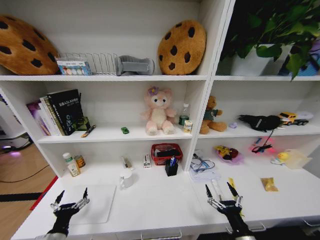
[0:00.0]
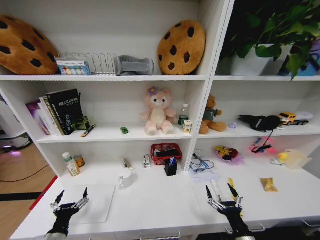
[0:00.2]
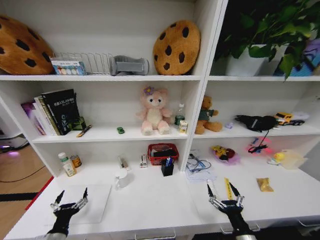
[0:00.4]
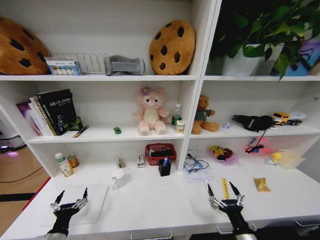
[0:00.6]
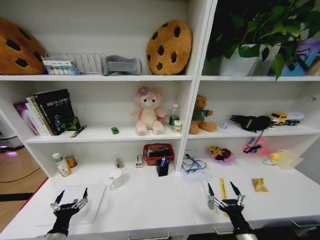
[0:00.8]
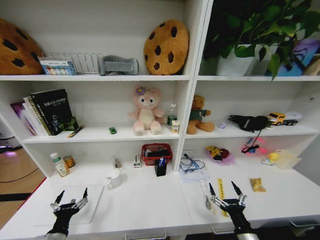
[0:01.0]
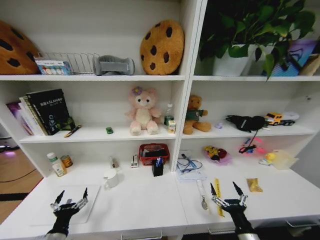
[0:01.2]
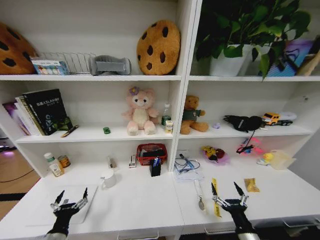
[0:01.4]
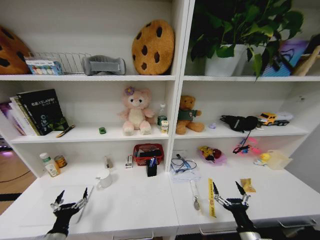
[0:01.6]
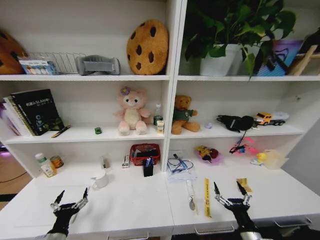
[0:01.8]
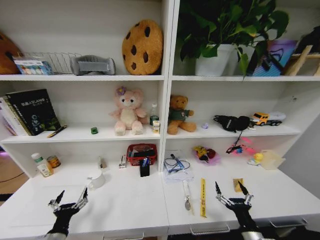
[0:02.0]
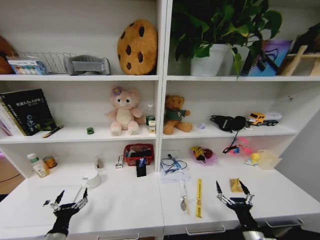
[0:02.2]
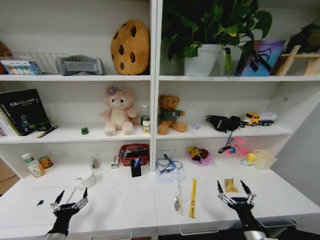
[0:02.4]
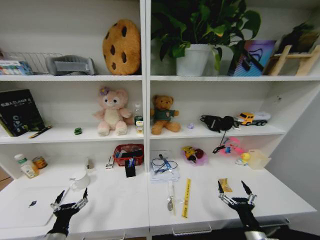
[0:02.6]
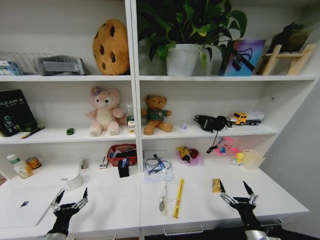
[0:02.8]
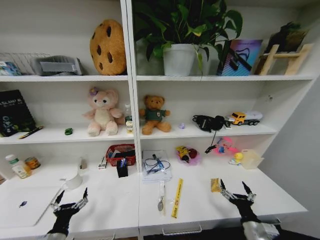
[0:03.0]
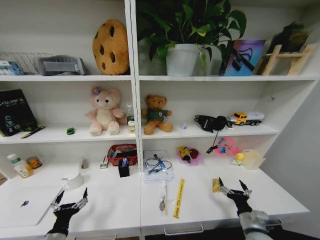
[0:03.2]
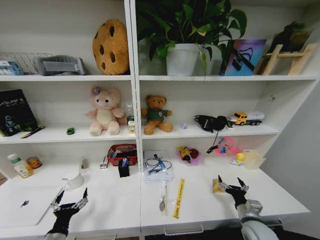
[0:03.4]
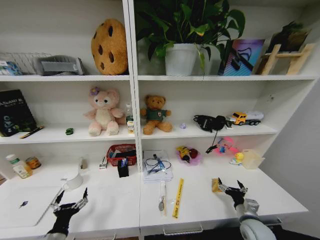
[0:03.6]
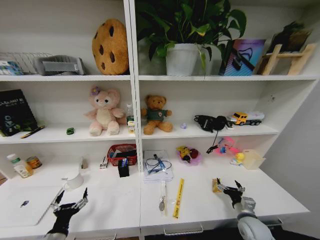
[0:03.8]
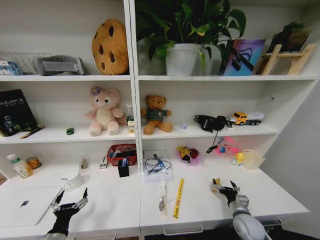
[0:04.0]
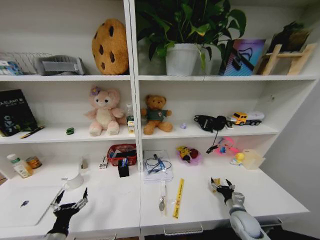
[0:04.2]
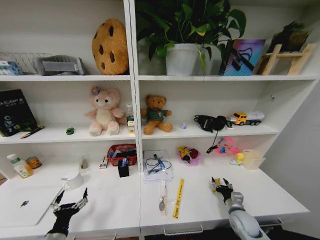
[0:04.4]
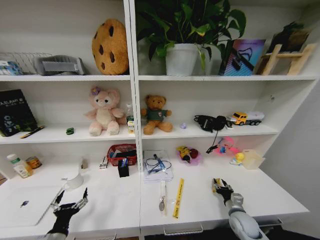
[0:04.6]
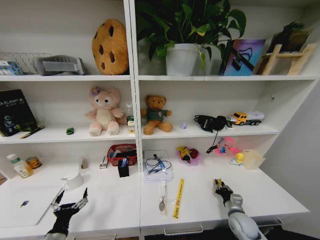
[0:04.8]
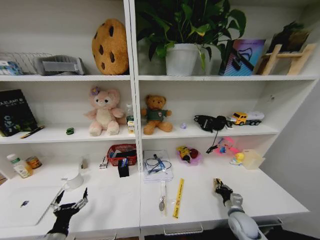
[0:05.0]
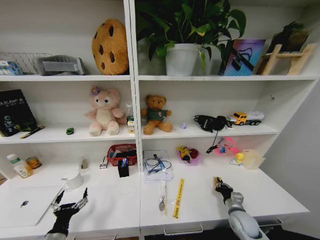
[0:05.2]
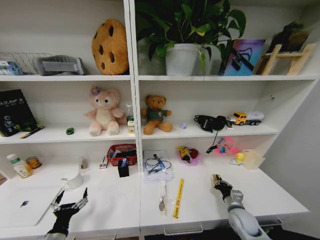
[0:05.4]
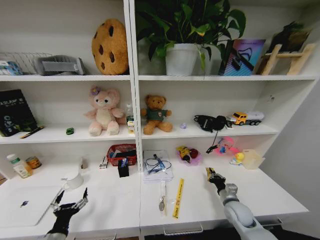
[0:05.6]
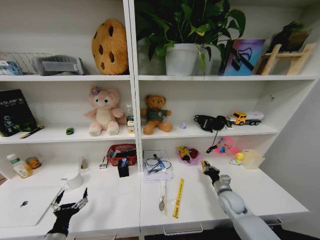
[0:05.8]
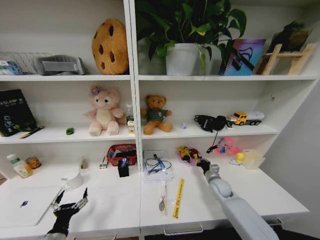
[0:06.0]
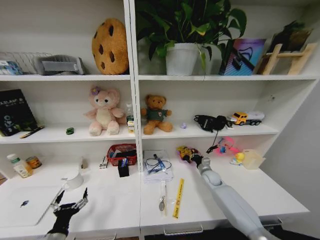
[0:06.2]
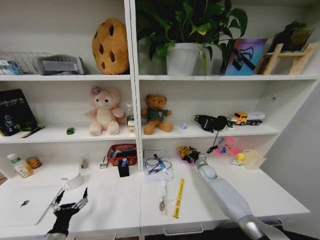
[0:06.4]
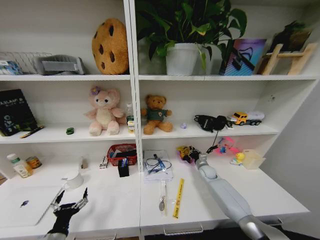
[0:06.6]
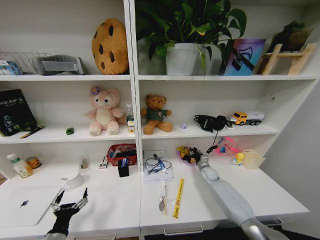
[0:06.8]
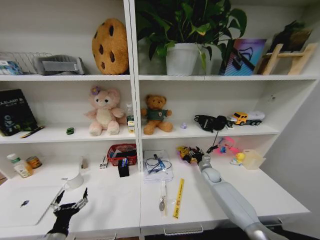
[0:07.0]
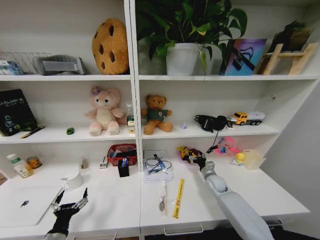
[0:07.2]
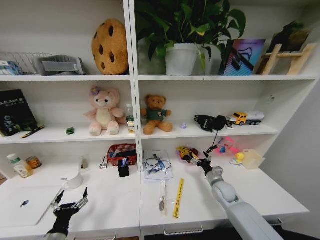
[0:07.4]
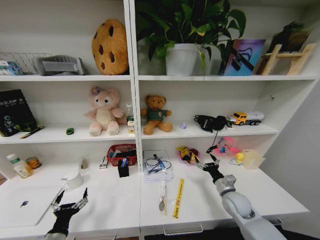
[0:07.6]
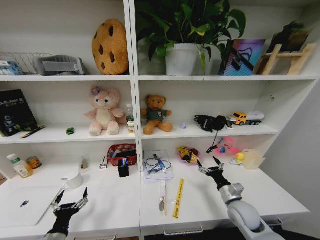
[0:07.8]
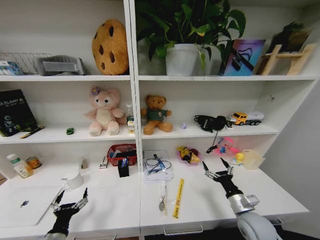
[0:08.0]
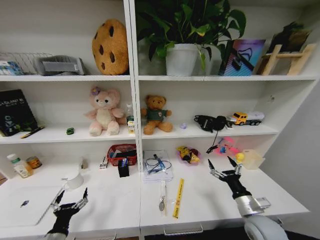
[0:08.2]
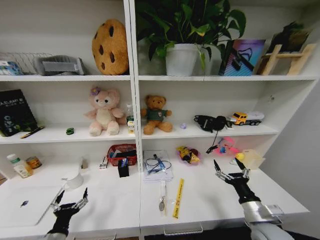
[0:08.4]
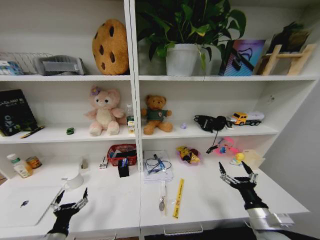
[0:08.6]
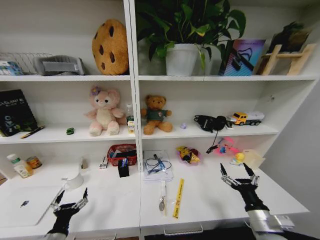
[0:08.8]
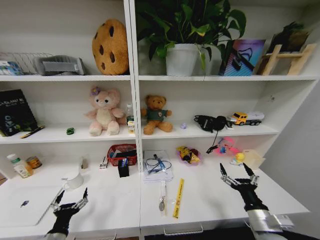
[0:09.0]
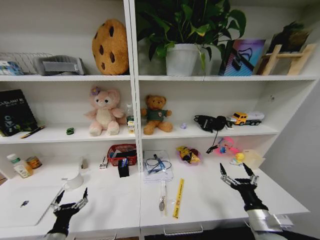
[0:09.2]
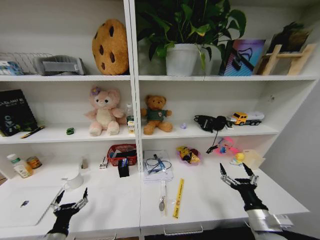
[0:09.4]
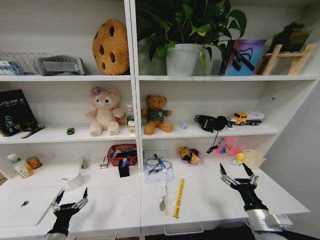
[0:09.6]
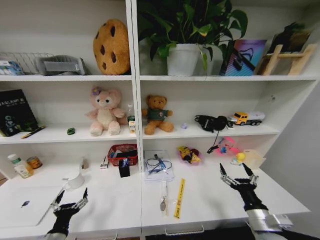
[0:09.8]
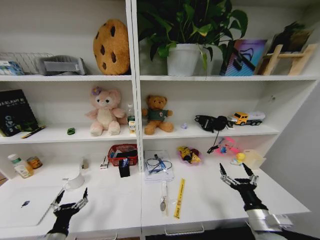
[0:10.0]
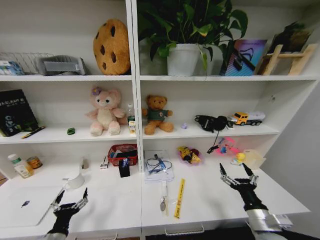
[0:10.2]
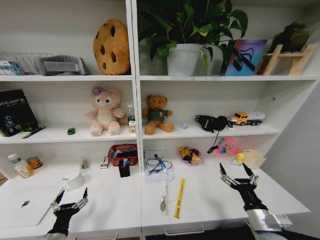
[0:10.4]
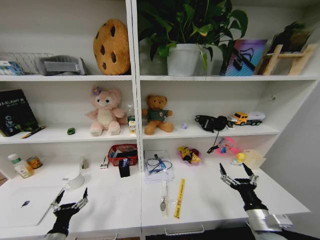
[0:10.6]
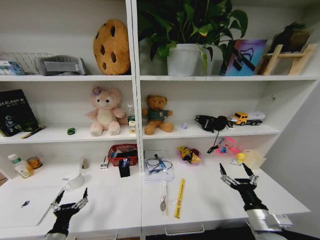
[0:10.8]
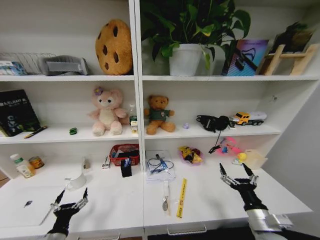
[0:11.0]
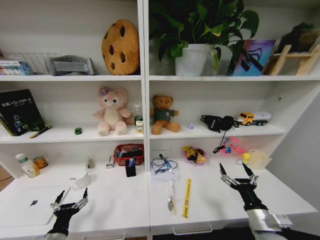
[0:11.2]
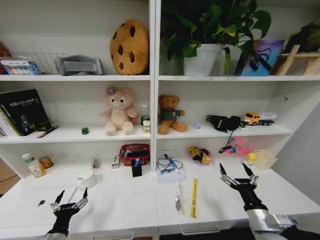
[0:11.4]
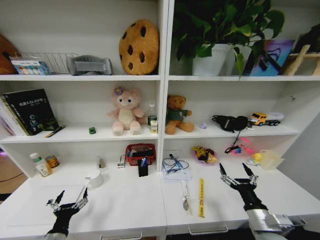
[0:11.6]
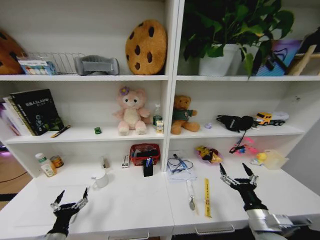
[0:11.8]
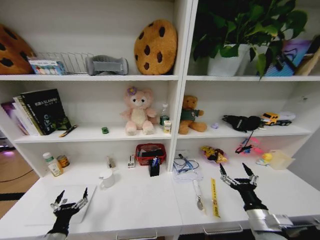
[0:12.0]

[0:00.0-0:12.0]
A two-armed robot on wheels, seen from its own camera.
Task of the whole recording: Organize the objects on the table.
0:03.0 to 0:04.4: The right gripper heads forward and downward, covering roughly 15 cm.
0:04.4 to 0:06.0: The right gripper goes approximately 15 cm forward, and closes.
0:06.0 to 0:07.6: The right gripper heads backward, covering roughly 10 cm, and opens its fingers.
0:07.6 to 0:09.0: The right gripper travels backward by approximately 15 cm.
0:09.0 to 0:10.4: Both grippers stay put.

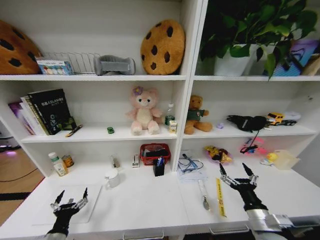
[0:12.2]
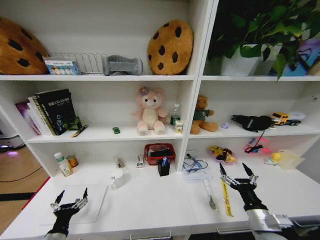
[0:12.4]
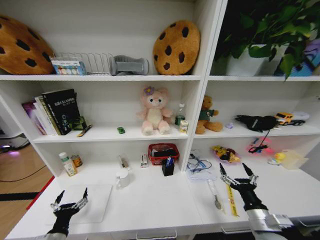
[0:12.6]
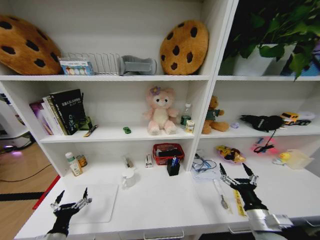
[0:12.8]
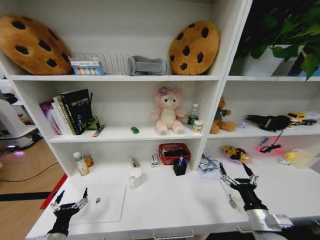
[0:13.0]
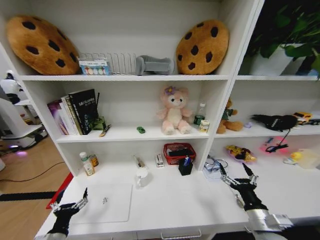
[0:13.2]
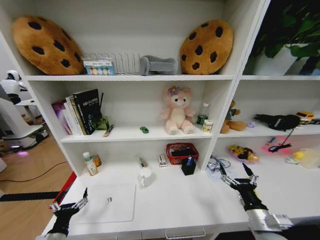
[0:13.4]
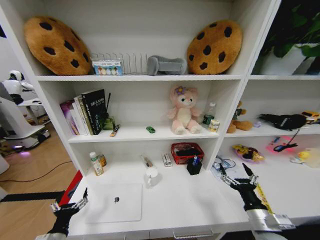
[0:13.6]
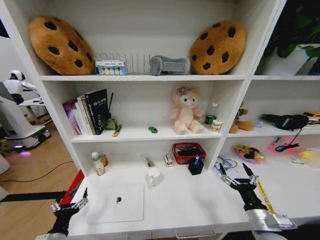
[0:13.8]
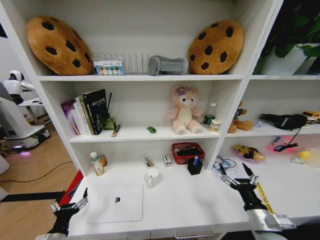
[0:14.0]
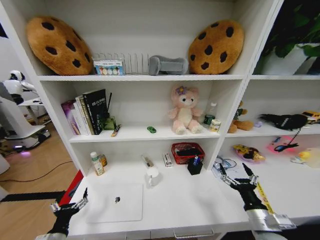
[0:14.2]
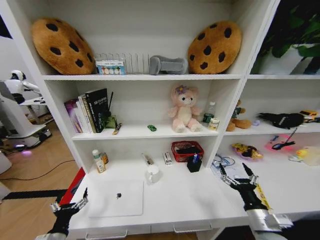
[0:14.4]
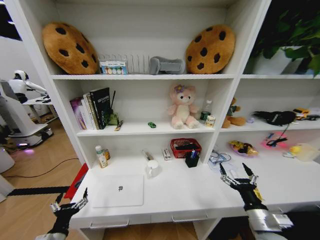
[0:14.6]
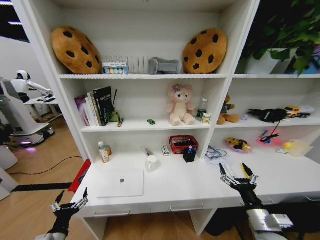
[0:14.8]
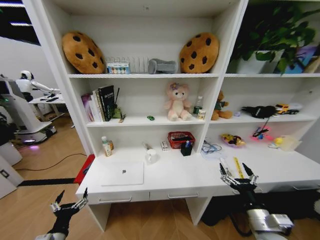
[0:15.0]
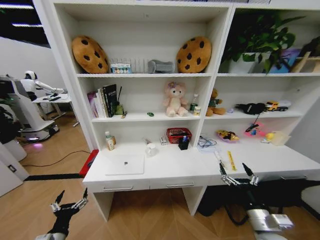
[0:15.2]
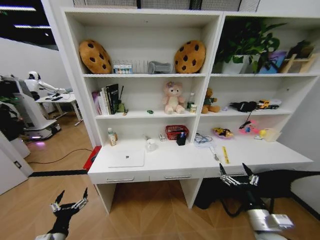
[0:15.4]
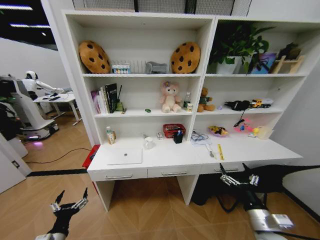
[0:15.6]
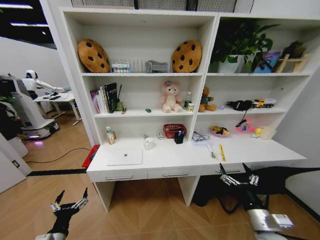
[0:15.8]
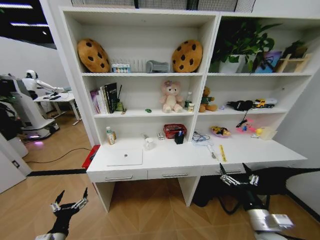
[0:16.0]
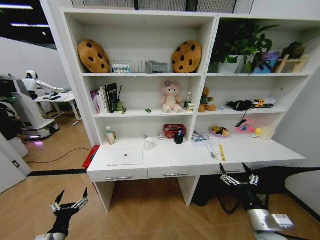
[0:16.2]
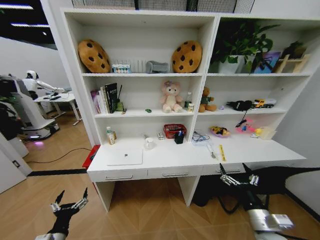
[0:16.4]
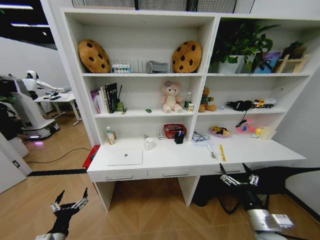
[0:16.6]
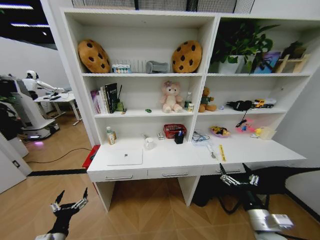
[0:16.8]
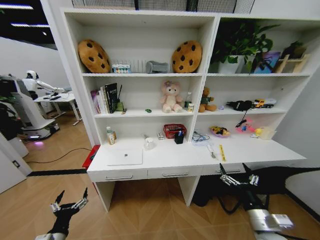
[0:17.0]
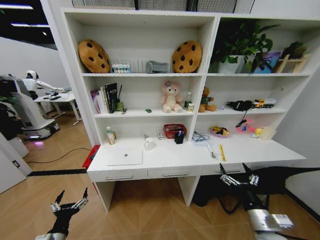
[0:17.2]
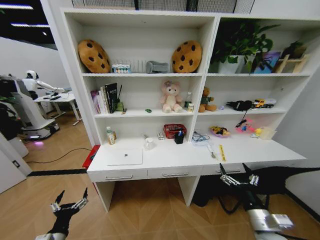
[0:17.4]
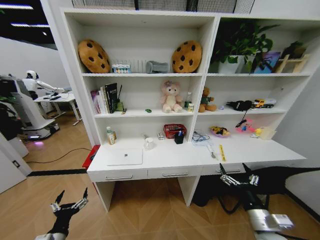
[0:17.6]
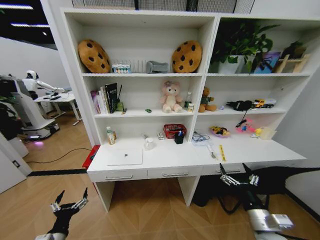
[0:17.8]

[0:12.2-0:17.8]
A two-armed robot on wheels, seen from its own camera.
Task of the whole recording: Organize the objects on the table.
0:16.4 to 0:17.8: Both grippers stay about where they are.

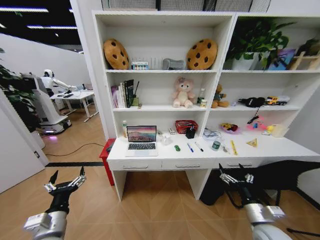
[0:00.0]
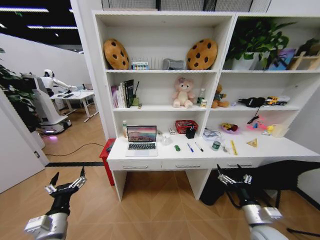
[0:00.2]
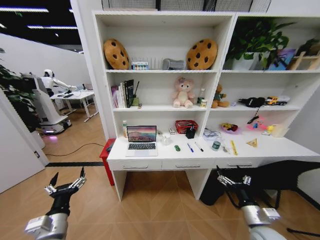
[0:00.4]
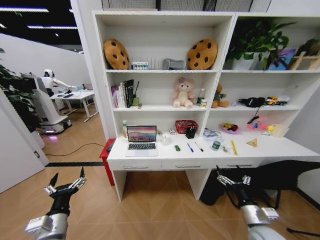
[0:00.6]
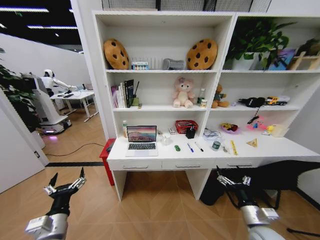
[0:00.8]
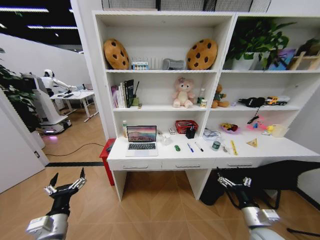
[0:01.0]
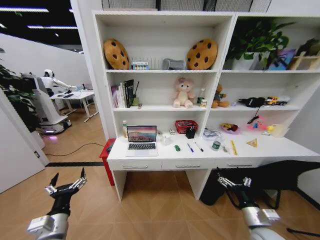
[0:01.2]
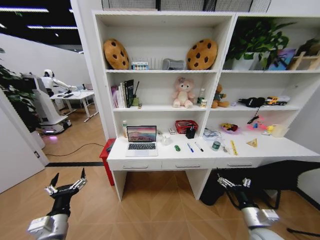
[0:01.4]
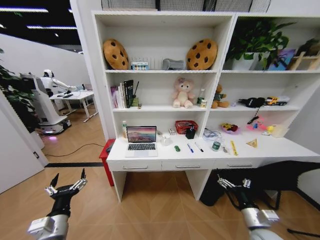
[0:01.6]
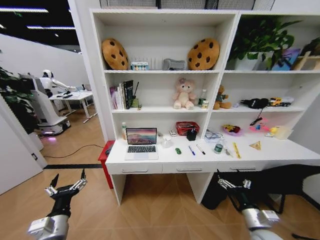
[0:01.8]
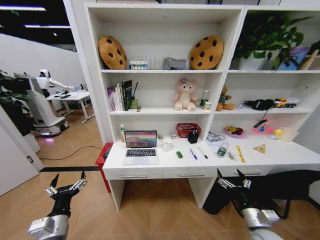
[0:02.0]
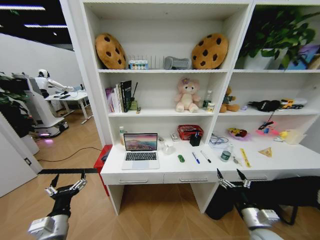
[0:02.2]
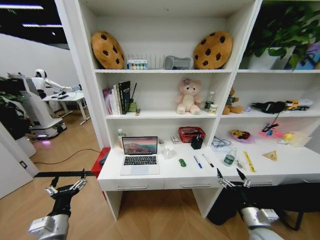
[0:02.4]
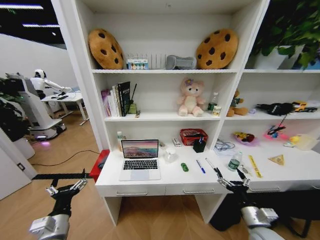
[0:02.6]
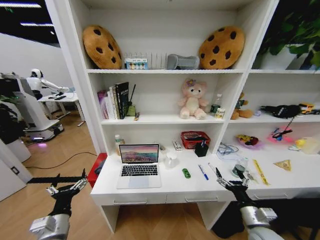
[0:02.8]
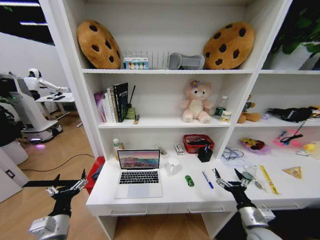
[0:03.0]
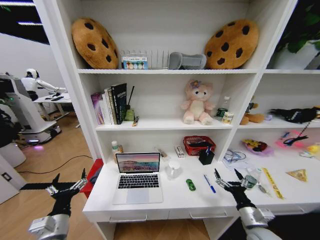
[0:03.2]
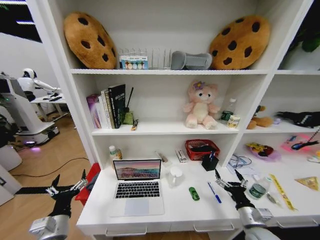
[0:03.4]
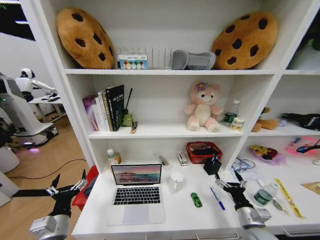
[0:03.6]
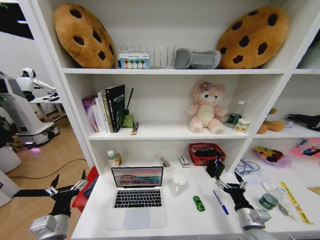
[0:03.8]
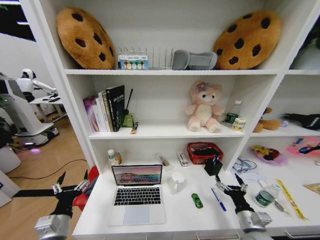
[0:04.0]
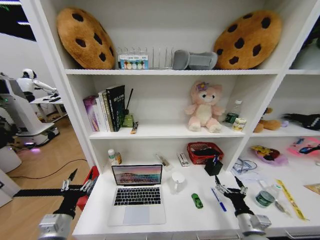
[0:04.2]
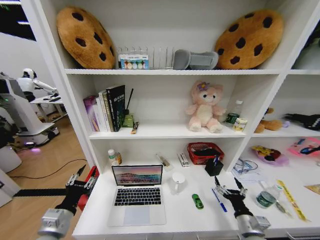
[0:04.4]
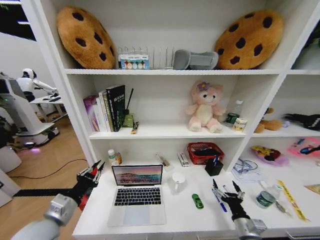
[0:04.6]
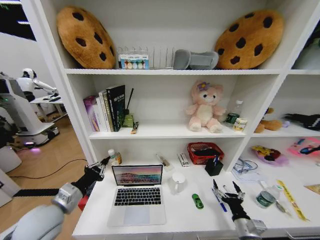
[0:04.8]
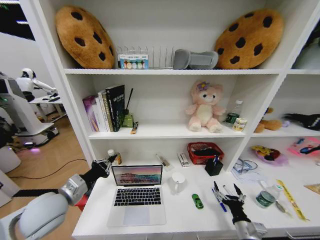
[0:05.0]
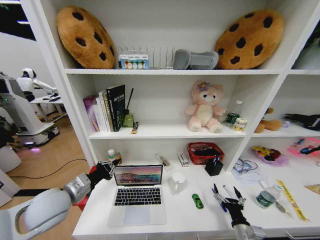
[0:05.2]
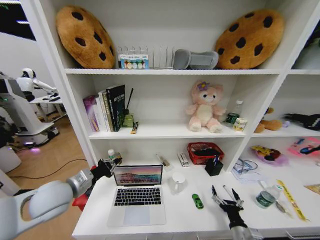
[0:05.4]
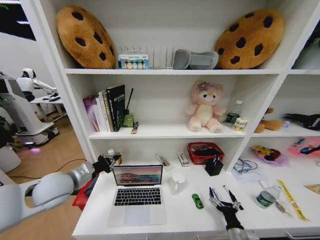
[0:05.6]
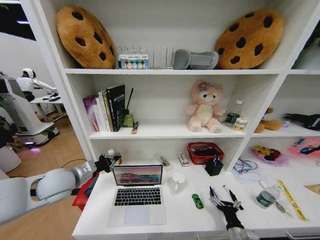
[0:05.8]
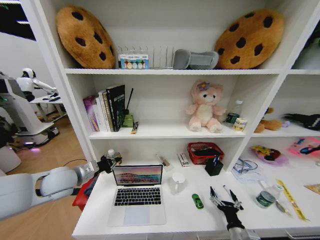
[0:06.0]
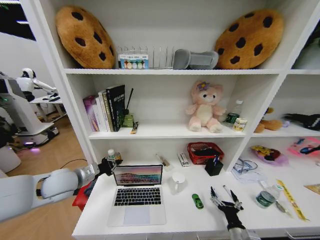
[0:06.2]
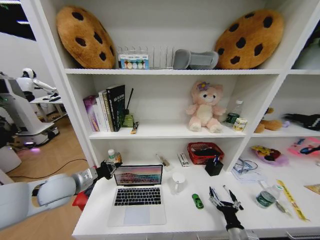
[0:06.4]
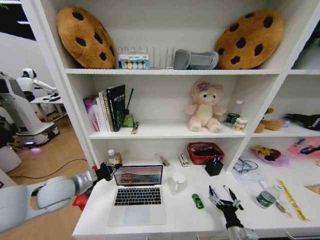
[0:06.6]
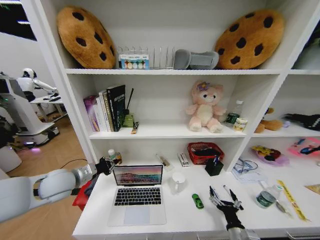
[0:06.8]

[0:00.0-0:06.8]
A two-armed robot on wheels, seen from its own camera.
Task of the whole recording: Organize the objects on the table.
0:04.0 to 0:05.4: The right gripper shifts about 5 cm downward. Meanwhile the left gripper shifts approximately 15 cm forward and upward, and closes its fingers.
0:05.4 to 0:06.8: The grippers stay close to where they were, moving slightly.
